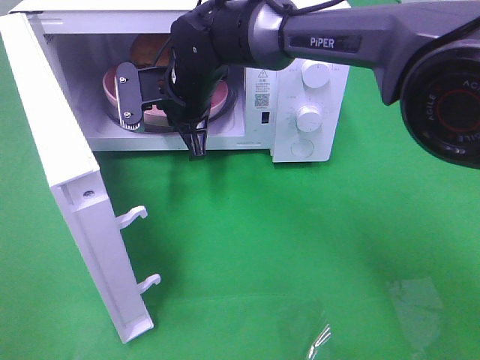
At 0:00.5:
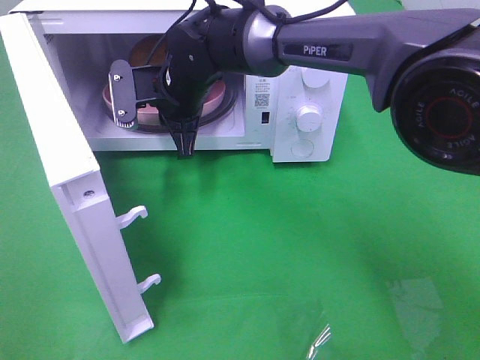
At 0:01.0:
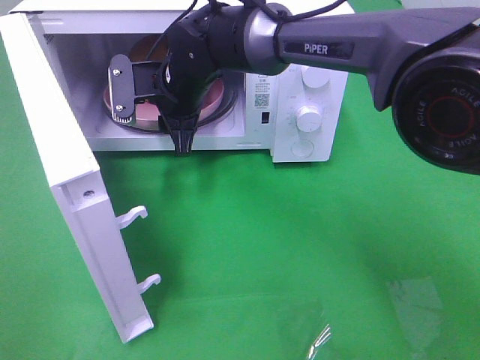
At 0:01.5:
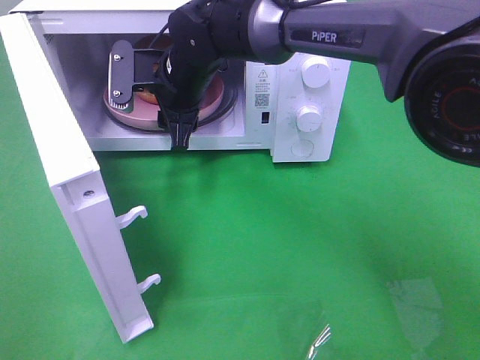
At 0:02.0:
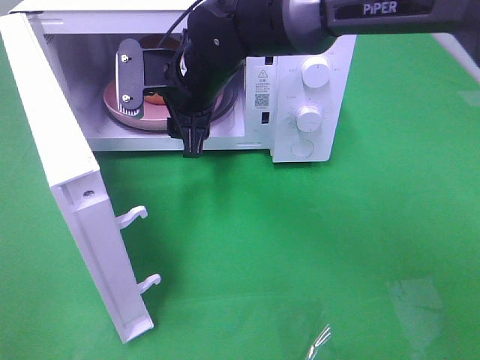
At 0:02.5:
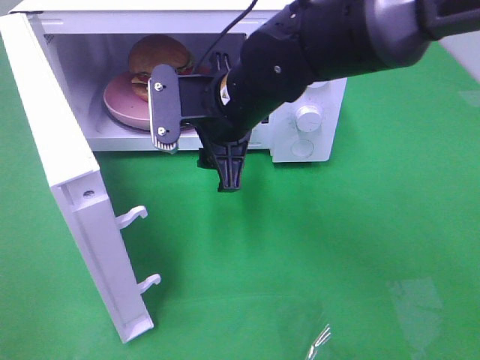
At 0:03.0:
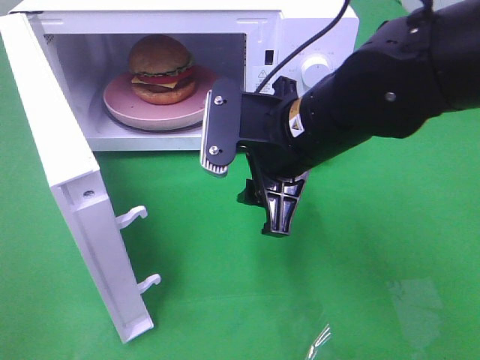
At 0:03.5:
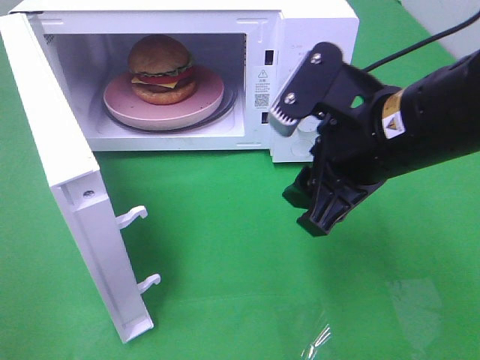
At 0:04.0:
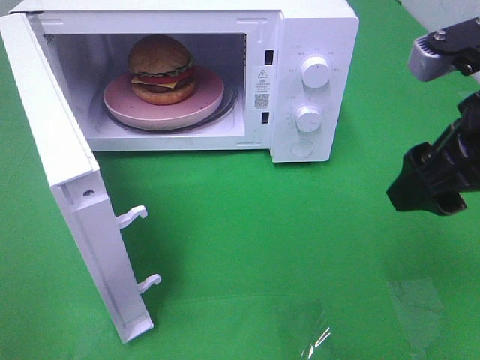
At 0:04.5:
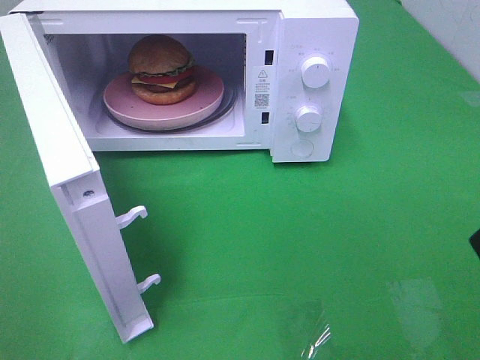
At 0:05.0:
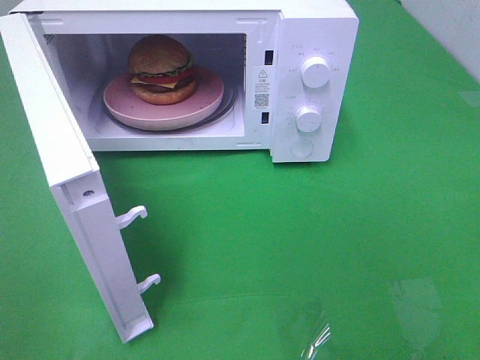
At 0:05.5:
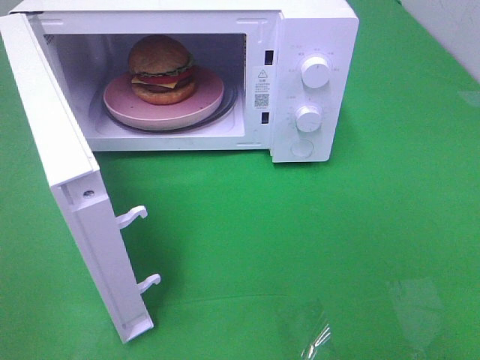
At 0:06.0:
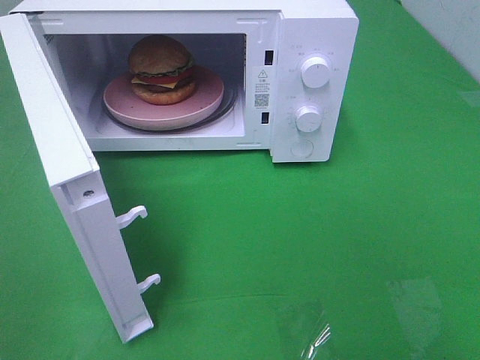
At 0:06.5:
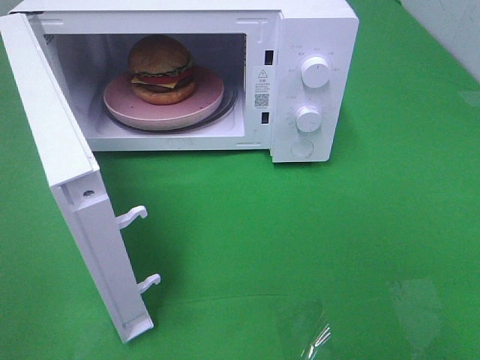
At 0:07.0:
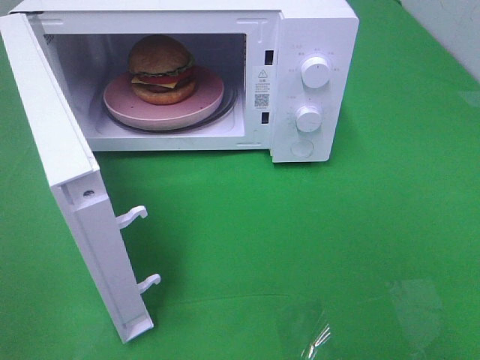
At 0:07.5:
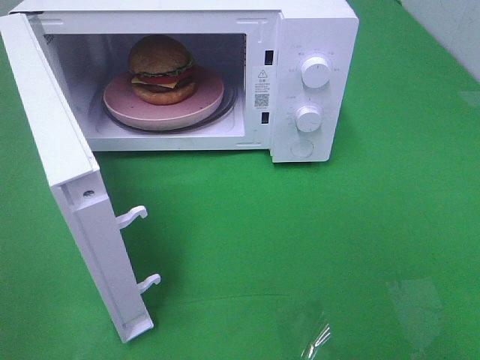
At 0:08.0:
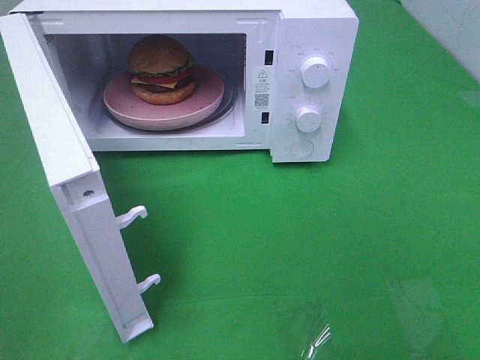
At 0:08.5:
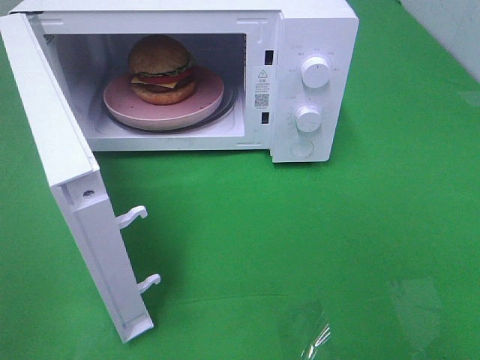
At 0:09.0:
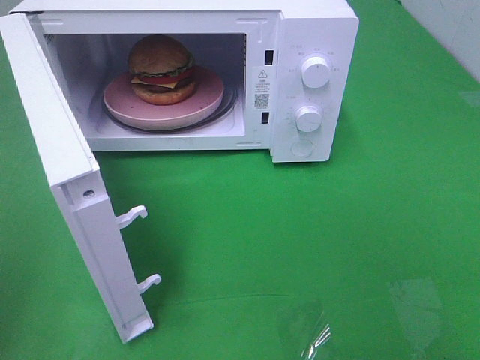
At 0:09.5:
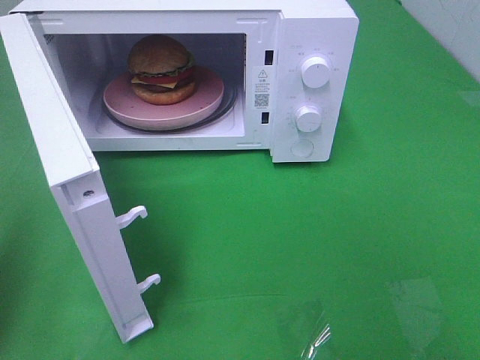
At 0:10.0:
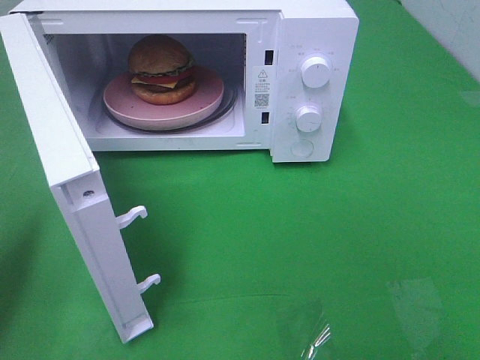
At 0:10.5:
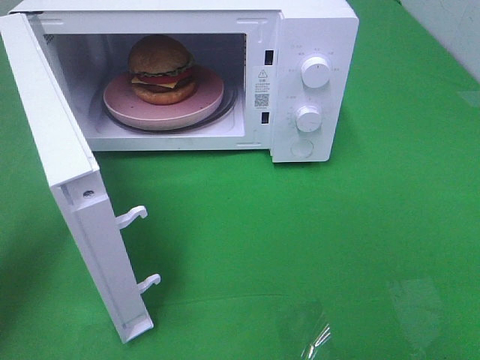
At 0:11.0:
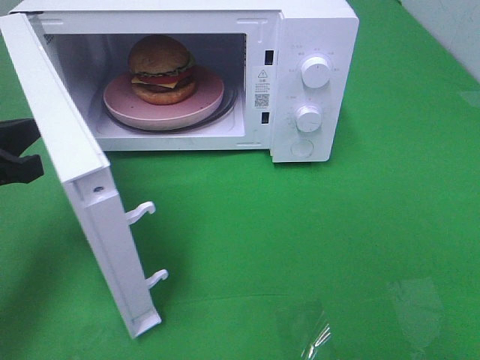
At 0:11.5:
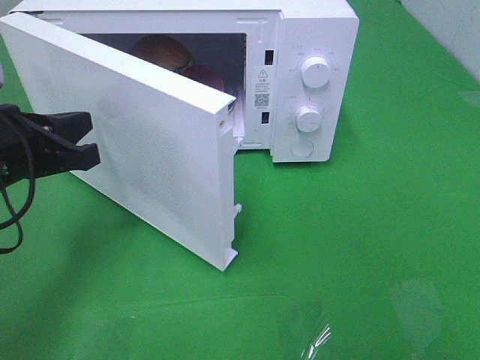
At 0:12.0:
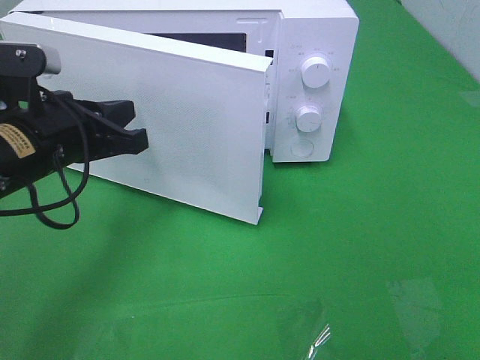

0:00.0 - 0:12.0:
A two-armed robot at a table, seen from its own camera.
Task of the whole recording: Heat the burger.
0:00.0 - 0:02.0: The right gripper opens its fingers.
0:02.0 - 0:04.0: The right gripper moves to the right and backward, some 30 cm.
0:04.0 - 0:06.0: The right gripper goes approximately 20 cm backward and to the right.
0:06.0 - 0:08.0: Both grippers stay about where they are.
0:08.0 - 0:10.0: The left gripper moves forward, approximately 20 cm, and closes its fingers.
0:10.0 - 0:12.0: The left gripper is displaced to the right and forward by some 15 cm.

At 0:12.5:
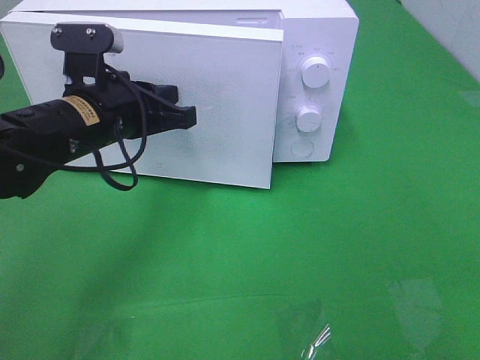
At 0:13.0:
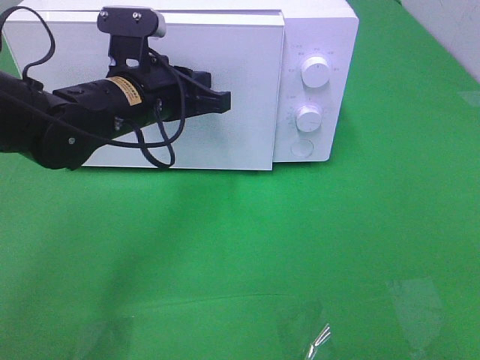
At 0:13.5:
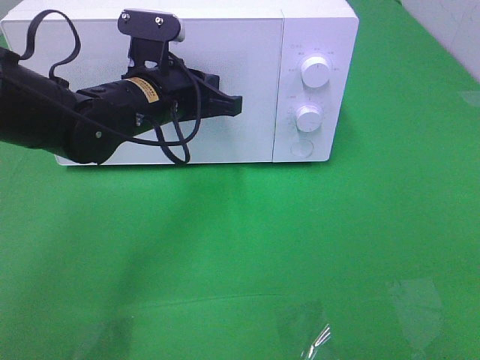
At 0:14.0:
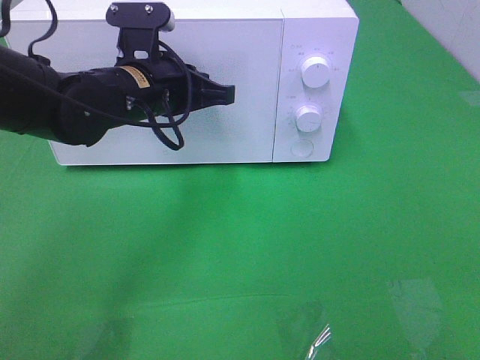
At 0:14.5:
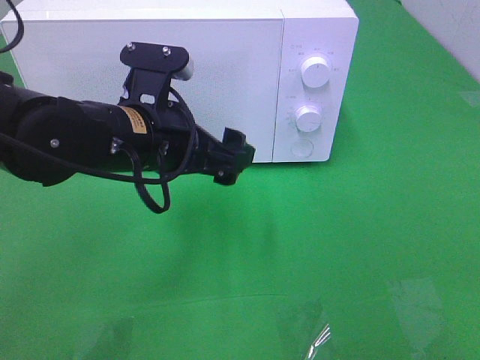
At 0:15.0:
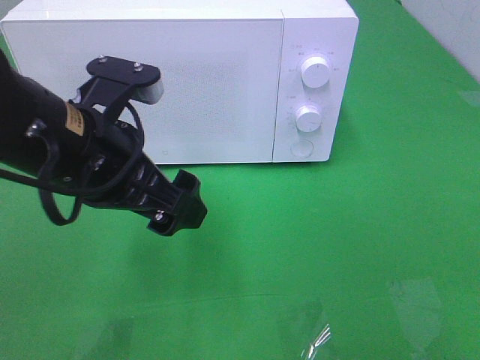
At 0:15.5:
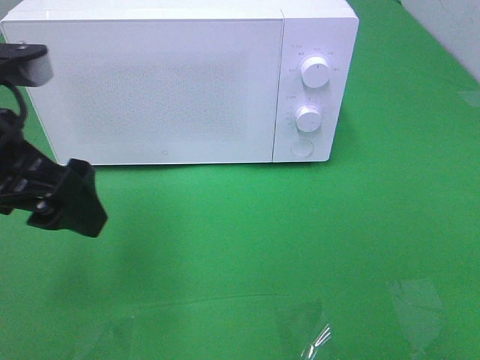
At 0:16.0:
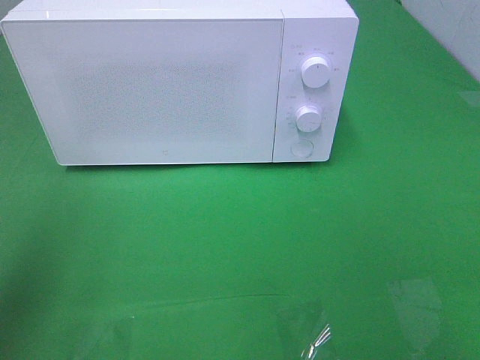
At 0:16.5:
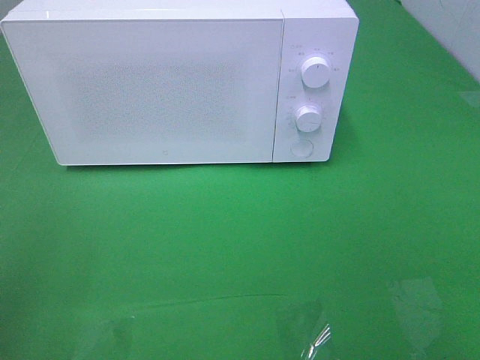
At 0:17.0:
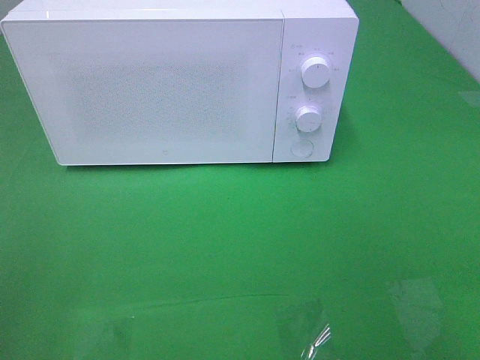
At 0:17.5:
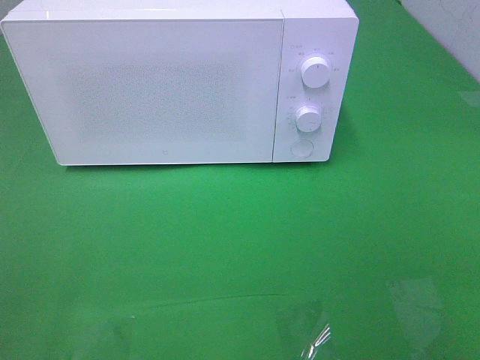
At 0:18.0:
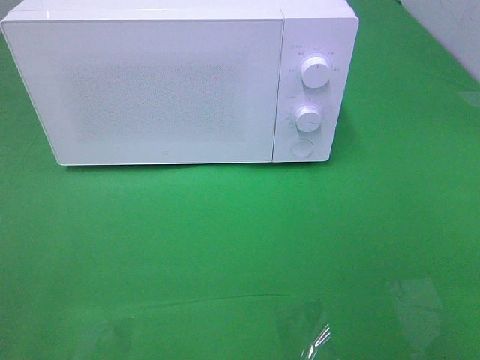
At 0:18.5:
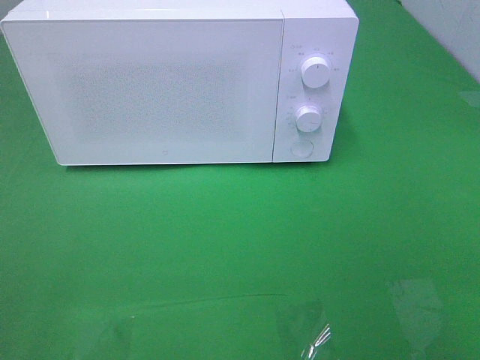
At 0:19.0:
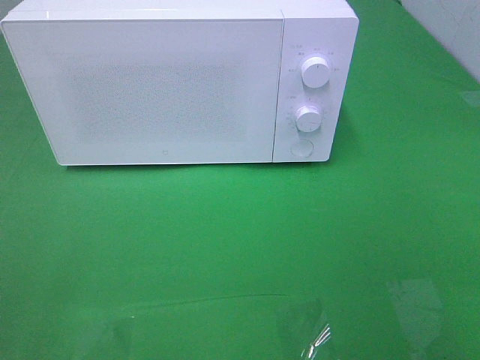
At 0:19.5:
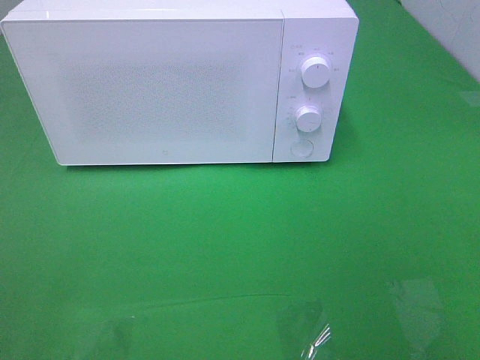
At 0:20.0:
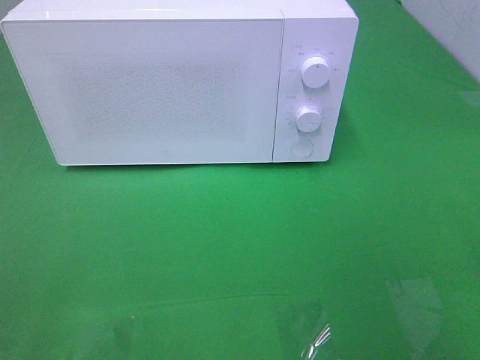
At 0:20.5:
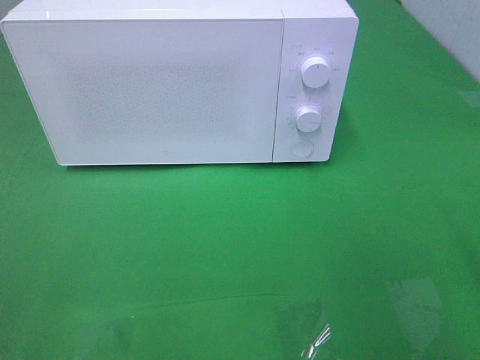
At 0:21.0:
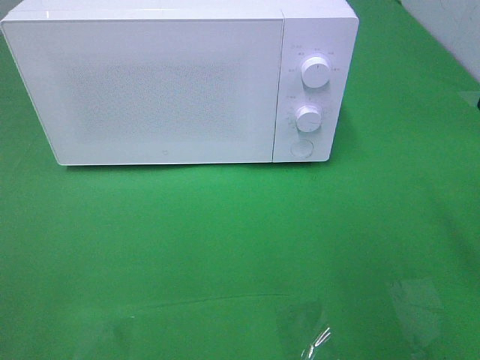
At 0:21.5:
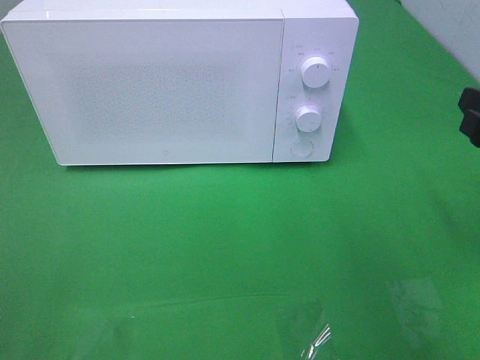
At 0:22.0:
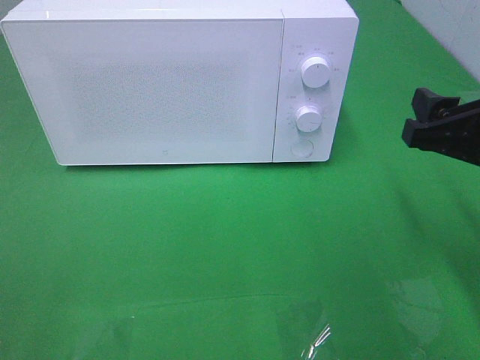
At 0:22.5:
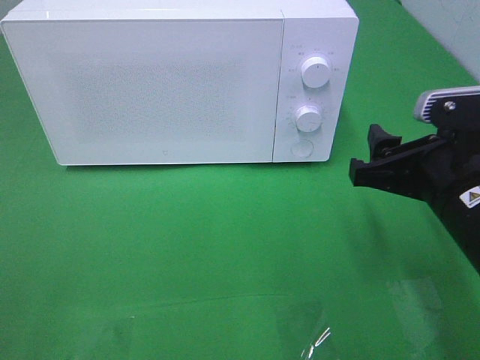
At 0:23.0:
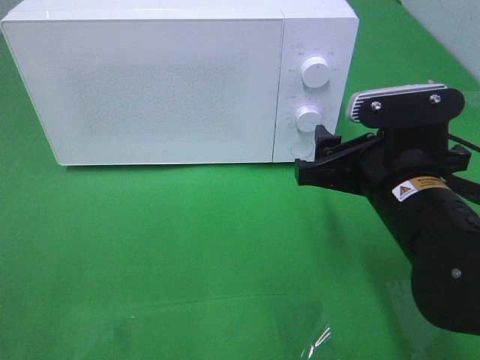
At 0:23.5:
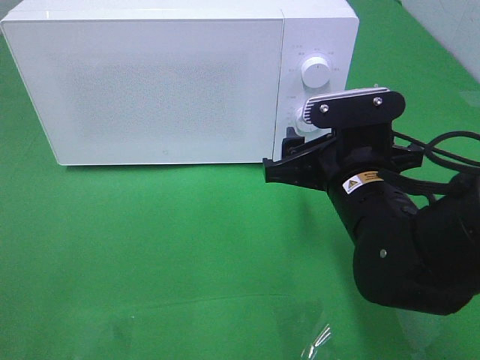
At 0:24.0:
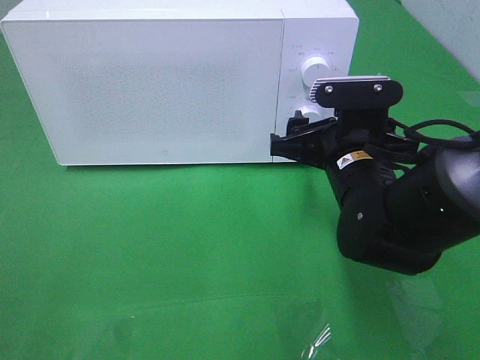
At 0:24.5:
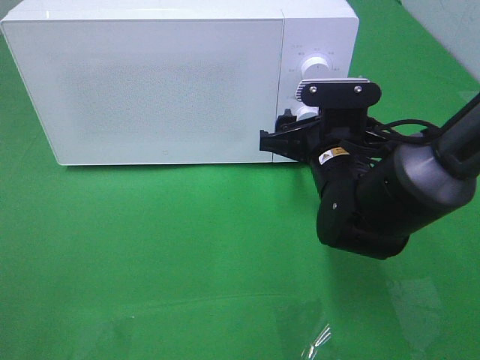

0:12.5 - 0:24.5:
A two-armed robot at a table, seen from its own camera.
Task of the whole recording: Heat the burger.
0:12.5 - 0:14.5: The left gripper moves some 5 cm, and opens.
0:14.5 - 0:16.5: The left gripper moves to the left, backward and upward, some 30 cm.
0:20.5 - 0:22.5: The right gripper travels to the left, downward and forward by about 15 cm.
0:22.5 - 0:24.5: The right gripper is displaced forward, to the left and downward by about 15 cm.

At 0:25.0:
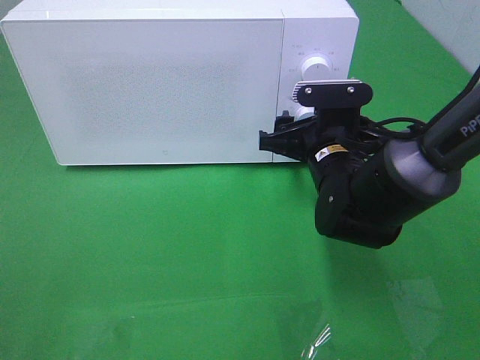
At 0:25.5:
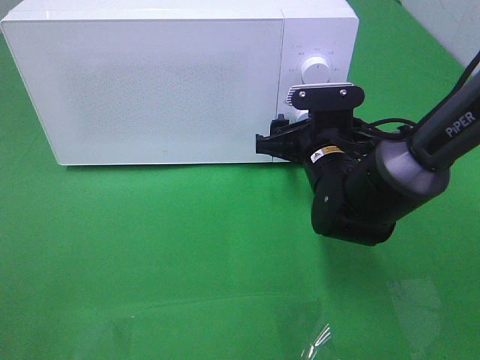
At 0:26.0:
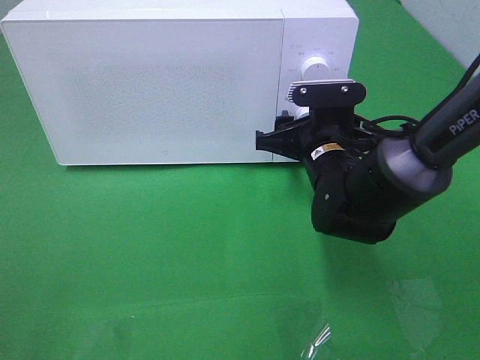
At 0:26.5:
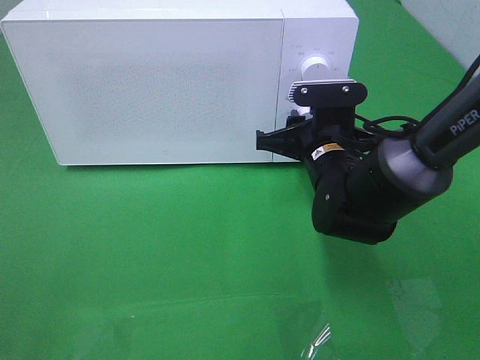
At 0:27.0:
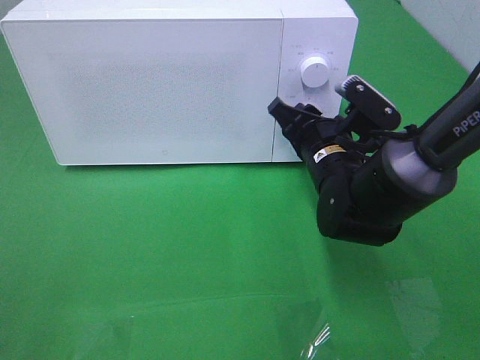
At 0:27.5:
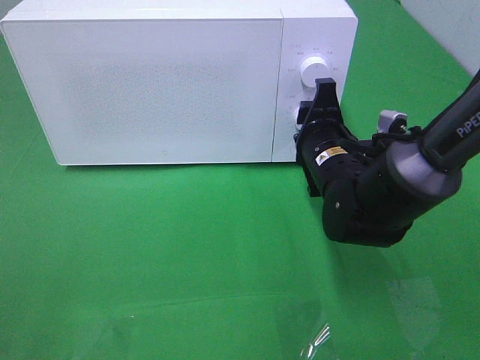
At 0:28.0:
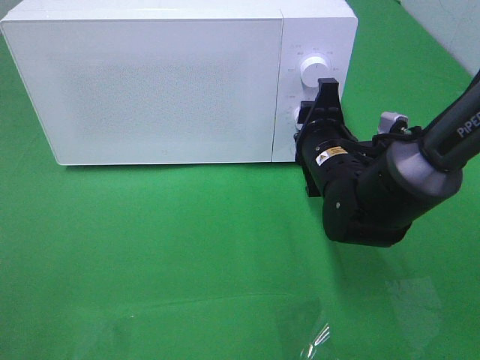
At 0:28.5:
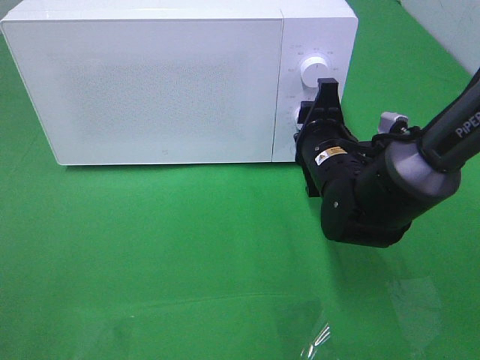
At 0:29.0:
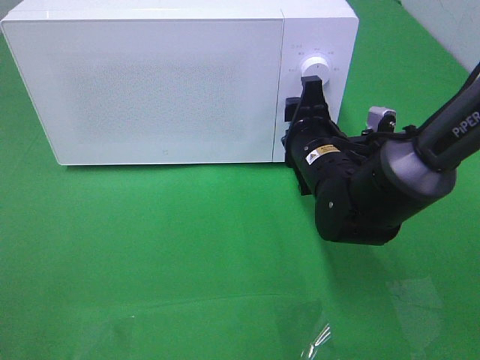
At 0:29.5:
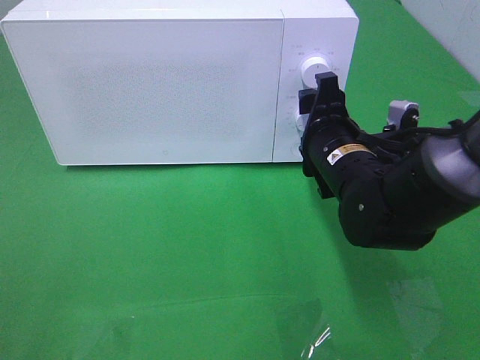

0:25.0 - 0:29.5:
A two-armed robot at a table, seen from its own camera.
Task of the whole recording: Heat the burger.
Step, 0:25.0 - 0:29.0: Right hand: twist timer button.
0:25.0 - 0:27.0: The right gripper closes up.
